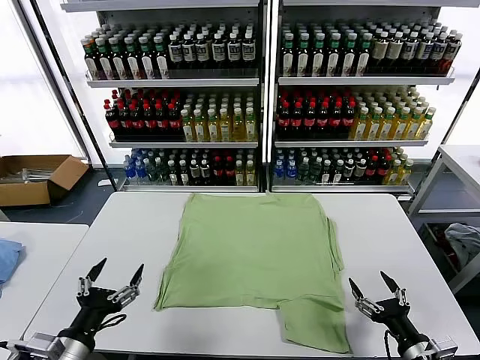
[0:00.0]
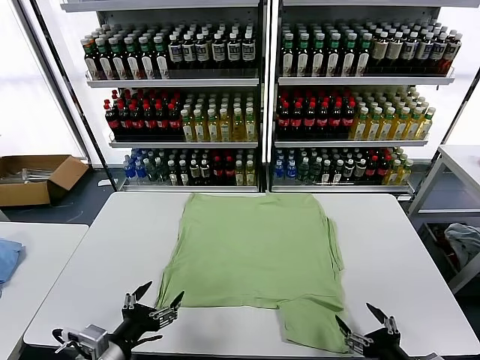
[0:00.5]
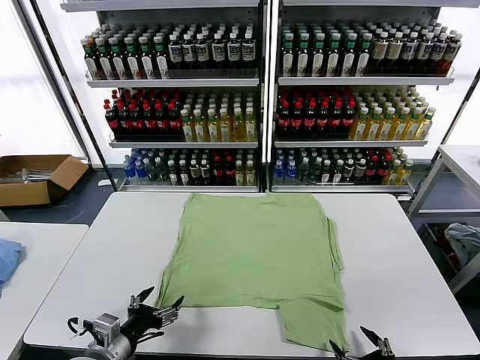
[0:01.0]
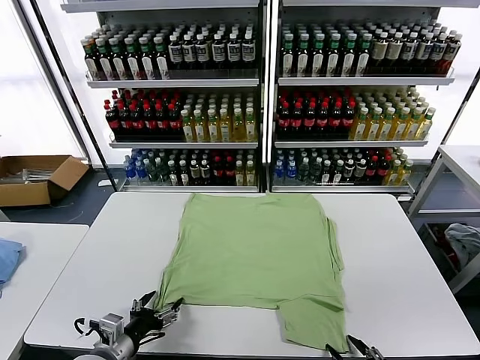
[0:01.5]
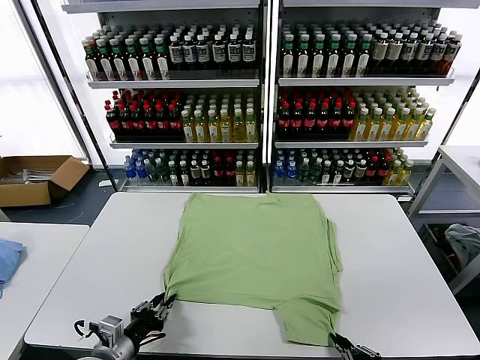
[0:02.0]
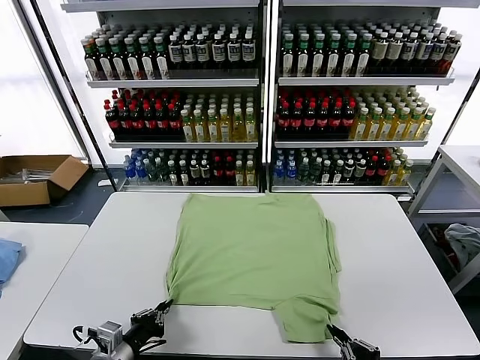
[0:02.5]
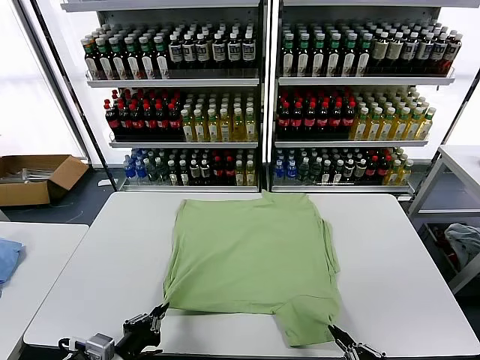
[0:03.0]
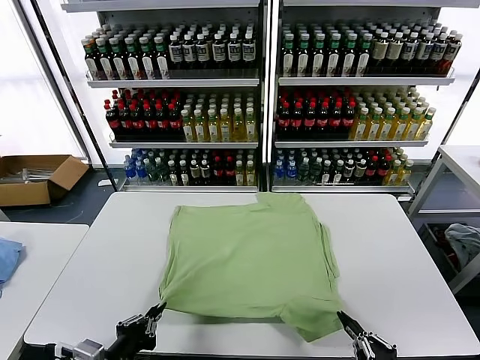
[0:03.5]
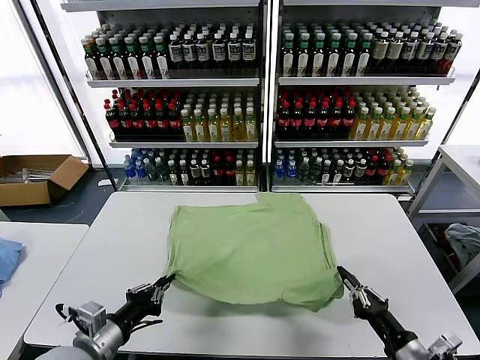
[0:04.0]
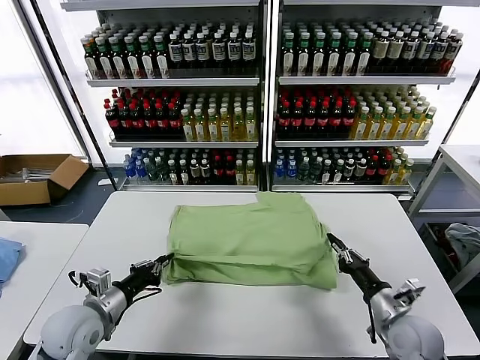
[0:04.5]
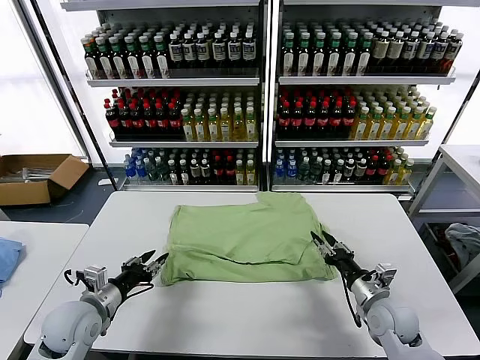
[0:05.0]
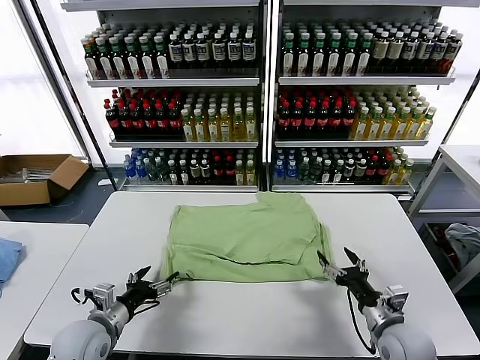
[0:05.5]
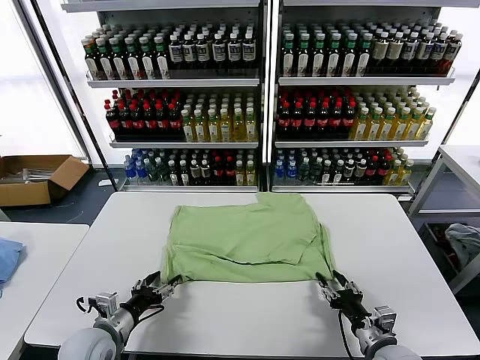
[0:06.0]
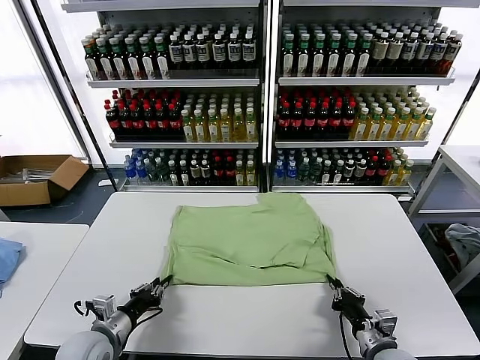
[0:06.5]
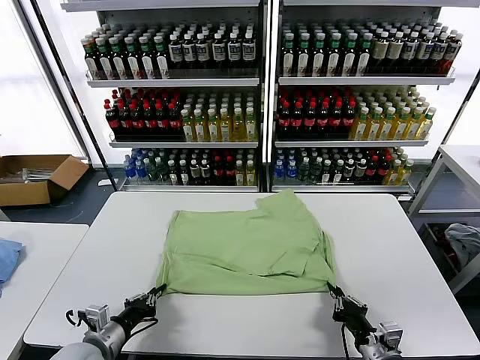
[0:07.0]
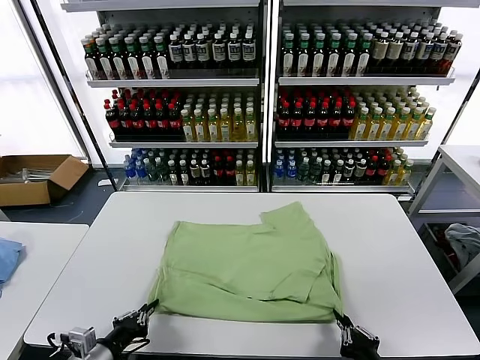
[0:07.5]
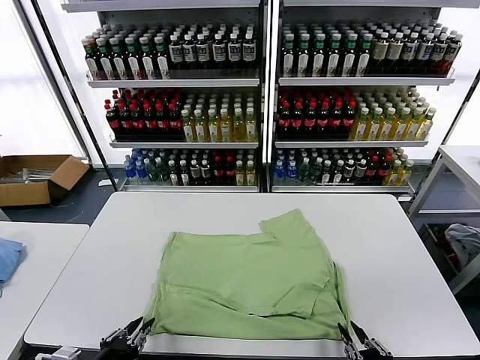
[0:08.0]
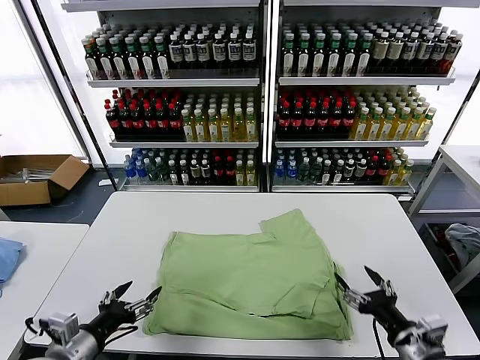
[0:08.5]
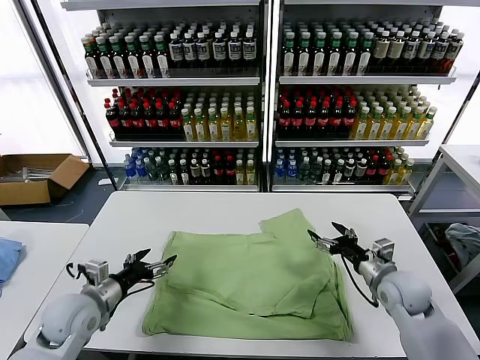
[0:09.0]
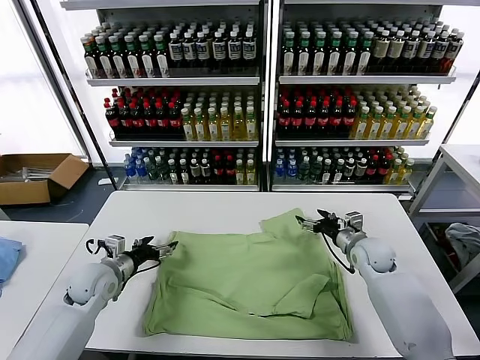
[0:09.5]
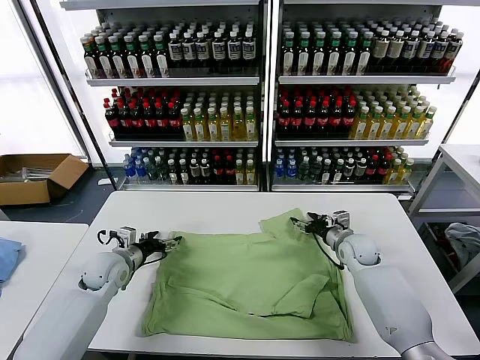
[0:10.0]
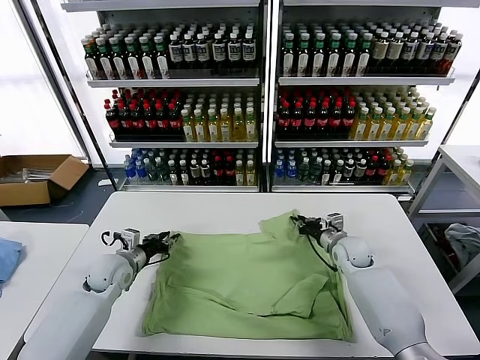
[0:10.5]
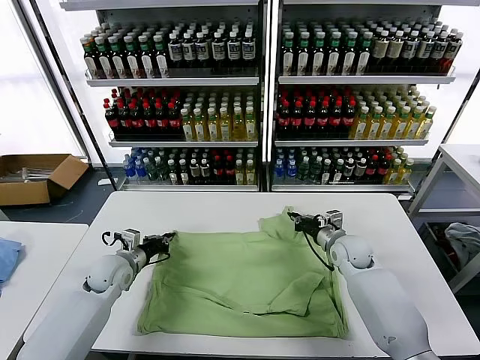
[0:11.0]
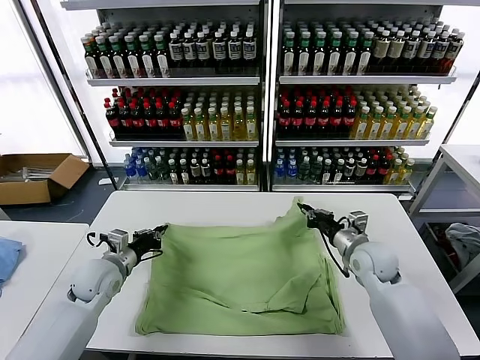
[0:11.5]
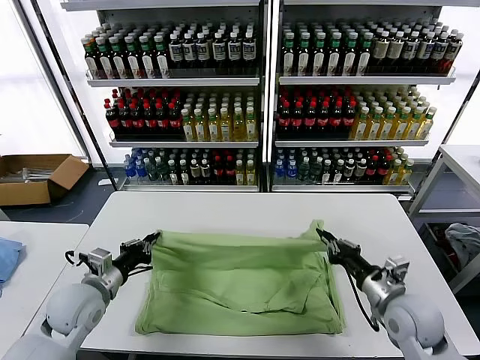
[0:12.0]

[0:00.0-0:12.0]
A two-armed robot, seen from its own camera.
Task of the whole recording: fold and organize the clothes.
Step, 0:00.0 to 0:02.0: use both grippers simultaneously to clamp the lower edge of the clothing fabric.
Step, 0:02.5 to 0:05.0: use both grippers to drag the lower edge of the fabric forward and fold it over the upper edge.
Step, 0:05.5 to 0:08.0: Drag the clothes downward with both gripper.
Step, 0:08.5 to 0:10.5: use both grippers simultaneously to clamp the upper edge of the clothing fabric.
0:02.0 to 0:04.0: The left gripper moves upward, about 10 cm. Meanwhile the right gripper moves forward, some 10 cm.
0:04.0 to 0:06.0: The right gripper is displaced downward by roughly 5 cm, and opens up, while the left gripper shifts roughly 10 cm downward and forward, and opens.
0:06.0 to 0:08.0: The two grippers go approximately 15 cm backward and upward. The left gripper closes and opens again. Meanwhile the right gripper closes and opens again.
0:08.0 to 0:10.0: The two grippers go roughly 35 cm forward. The left gripper opens.
0:10.0 to 0:12.0: The right gripper shifts some 20 cm backward, and closes, while the left gripper is displaced backward by roughly 10 cm, and closes its fingers.

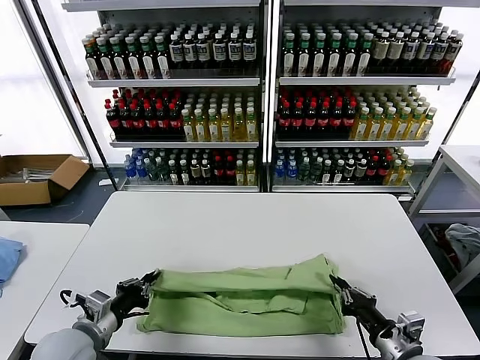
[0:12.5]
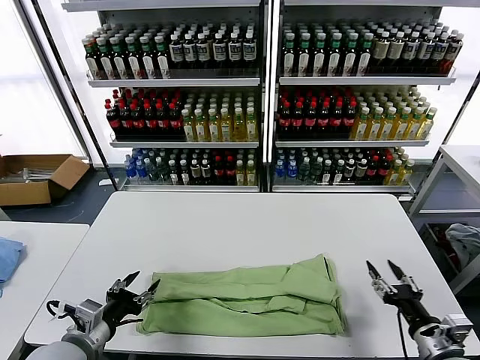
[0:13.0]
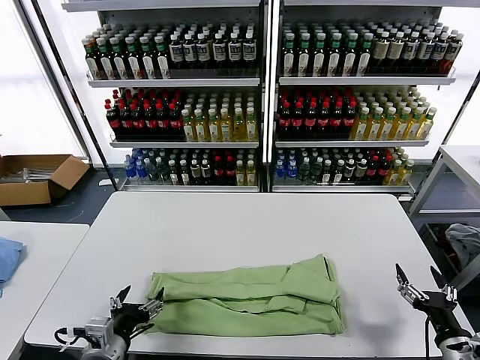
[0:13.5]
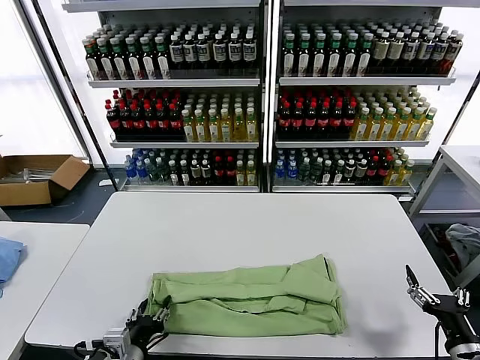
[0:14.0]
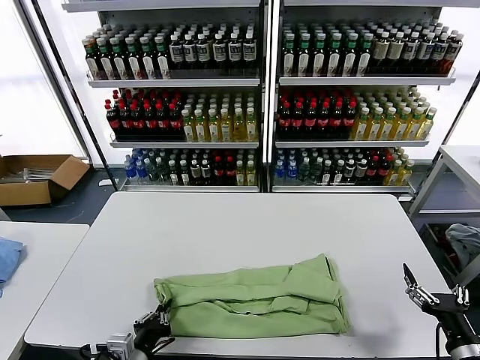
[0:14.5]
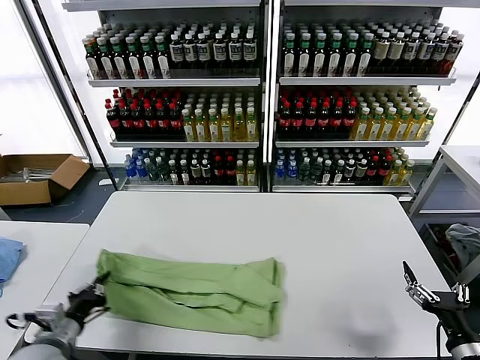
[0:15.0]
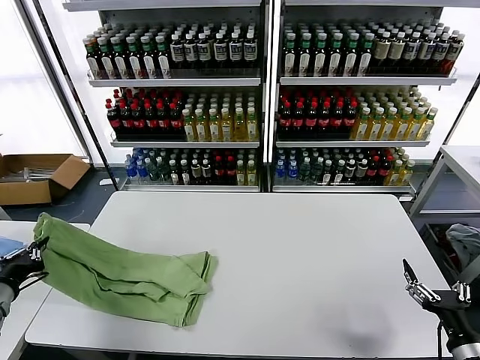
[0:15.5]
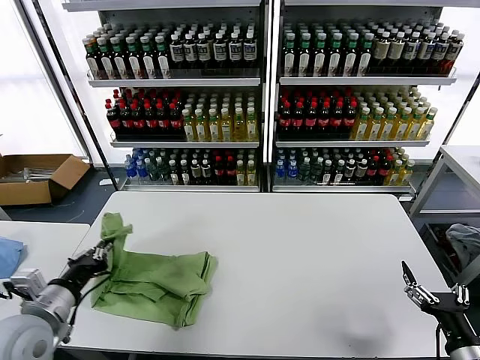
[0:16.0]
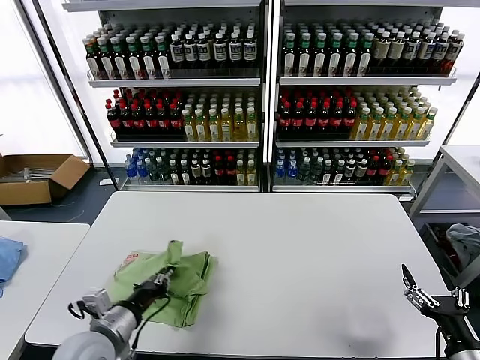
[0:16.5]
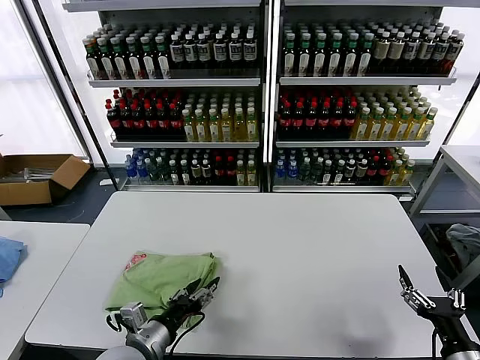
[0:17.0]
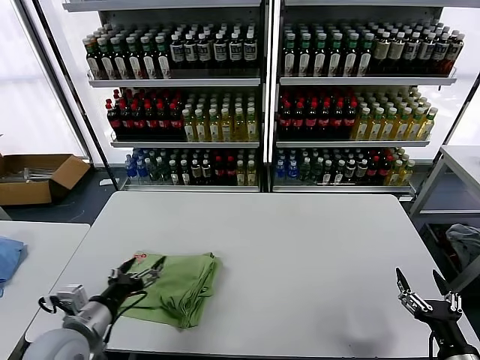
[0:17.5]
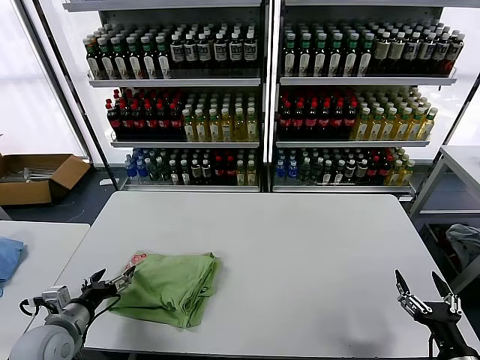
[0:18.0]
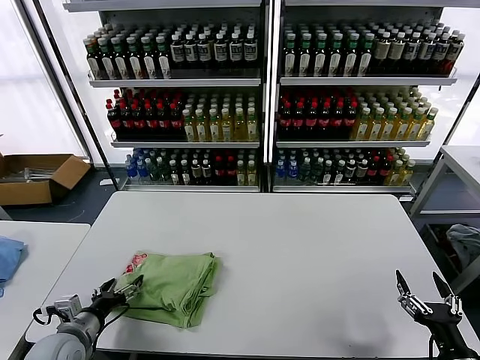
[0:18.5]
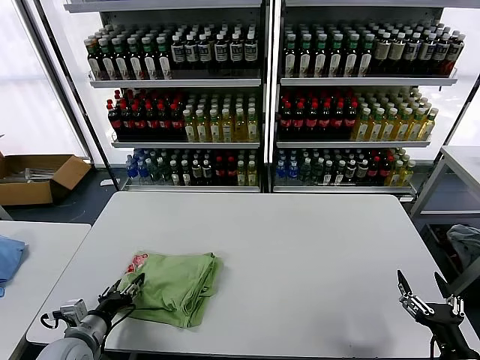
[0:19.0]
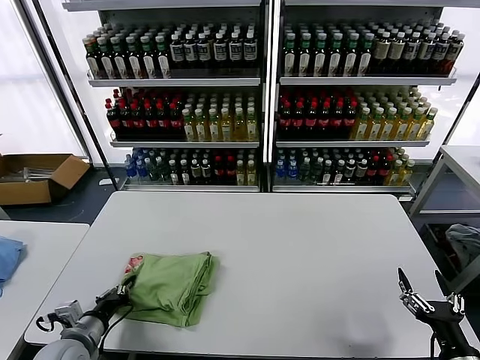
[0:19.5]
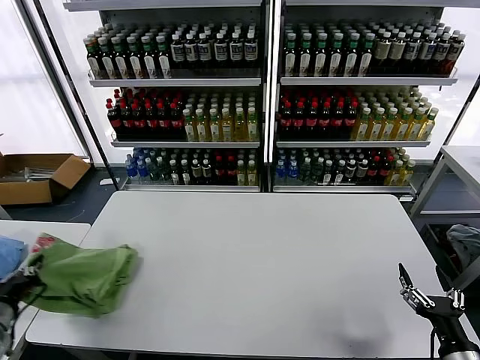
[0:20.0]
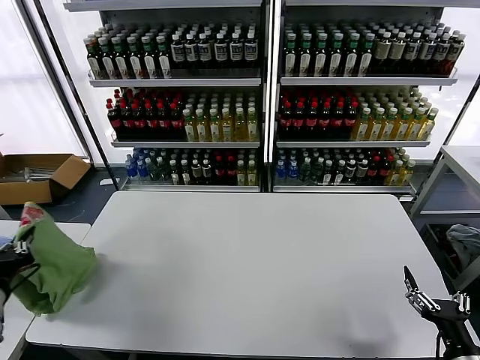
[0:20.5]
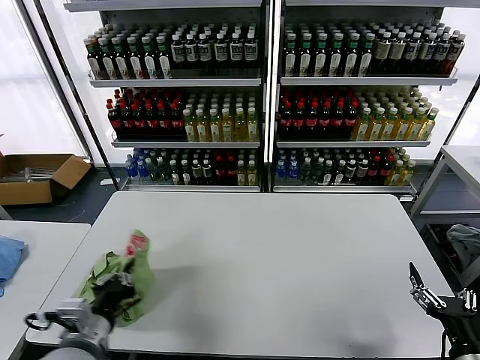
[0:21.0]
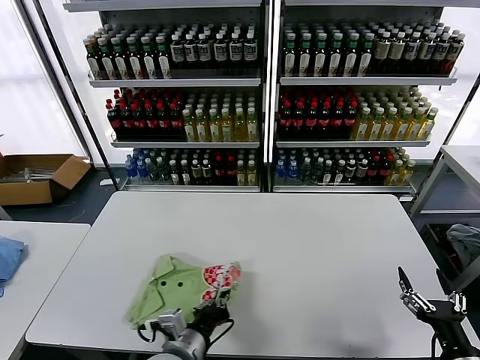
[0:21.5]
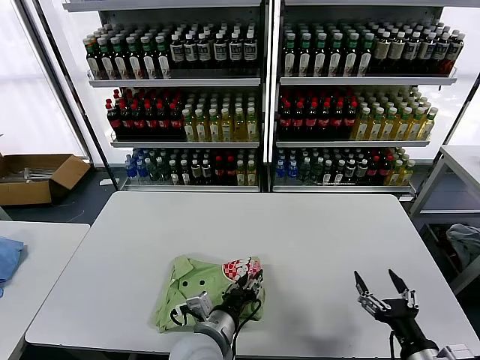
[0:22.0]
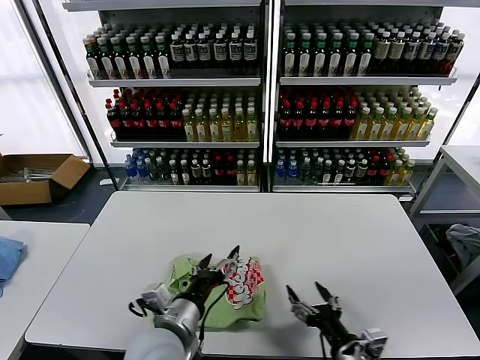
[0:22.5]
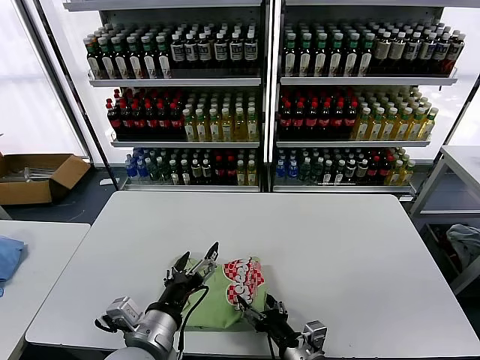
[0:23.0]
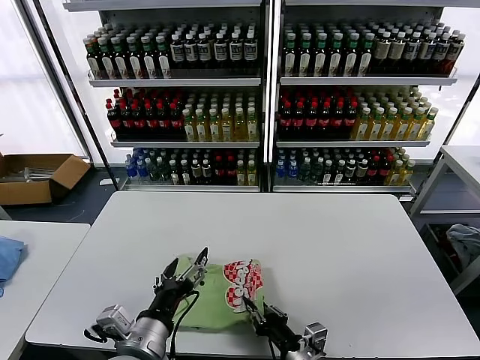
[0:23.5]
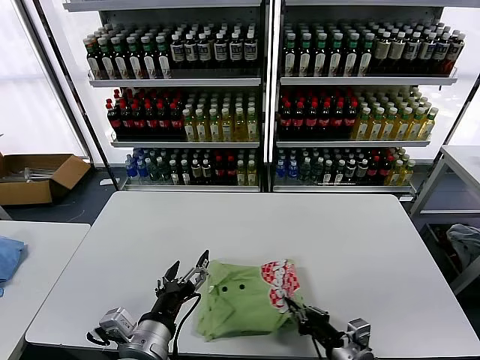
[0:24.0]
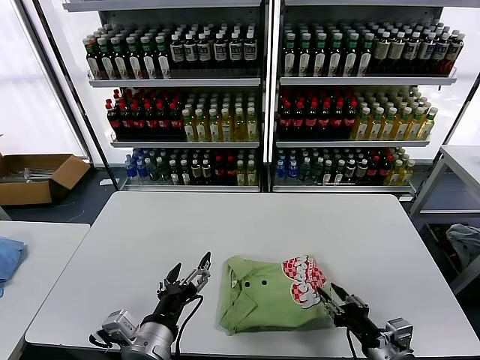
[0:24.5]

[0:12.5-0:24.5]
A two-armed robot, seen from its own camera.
Task of the whole recording: fold and organize the clothes.
Step, 0:13.0 to 0:14.5: use the left gripper to clamp the left edge of the fabric.
Step, 0:15.0 to 0:17.0: use the left gripper to drag the left edge of the fabric to the left and folds it over the right edge.
Step, 0:17.5 to 0:22.0: Flip the folded clothes over with left gripper.
0:12.5 to 0:14.5: The right gripper moves to the right, about 10 cm, and opens its fingers. The left gripper shifts about 10 cm to the right and backward, and opens and closes again.
0:14.5 to 0:16.5: The left gripper shifts approximately 10 cm upward and forward, and moves about 25 cm to the left and comes back.
0:16.5 to 0:18.5: The left gripper moves to the left and downward, roughly 10 cm, and opens up.
0:18.5 to 0:20.5: The left gripper heads upward and to the left, covering roughly 15 cm, and closes.
0:20.5 to 0:22.5: The left gripper shifts about 30 cm to the right, and opens its fingers, while the right gripper goes roughly 15 cm to the left.
0:22.5 to 0:24.5: The left gripper heads backward, covering approximately 5 cm. The right gripper shifts roughly 5 cm to the right, and closes.

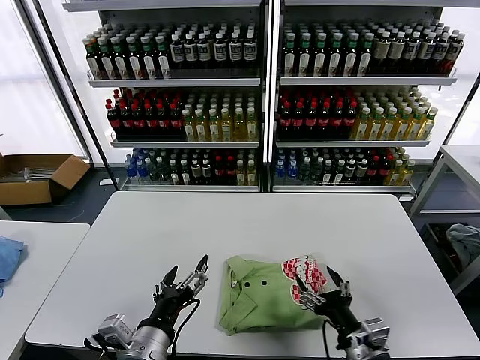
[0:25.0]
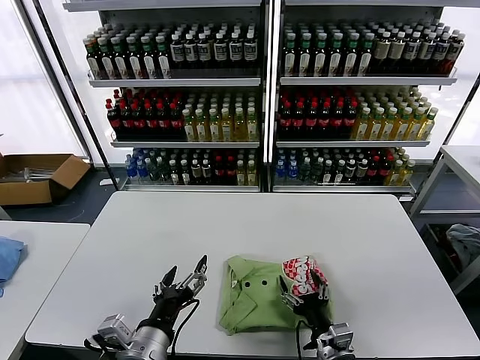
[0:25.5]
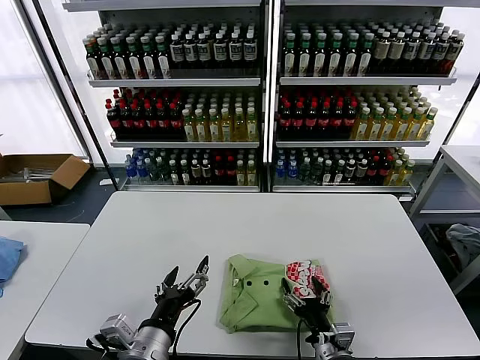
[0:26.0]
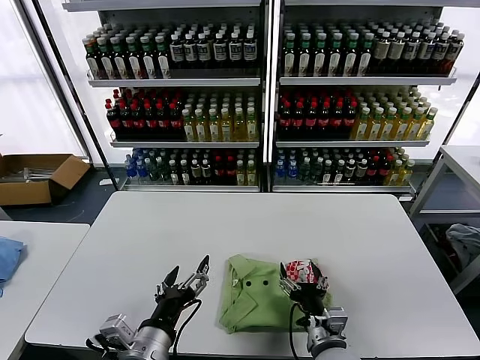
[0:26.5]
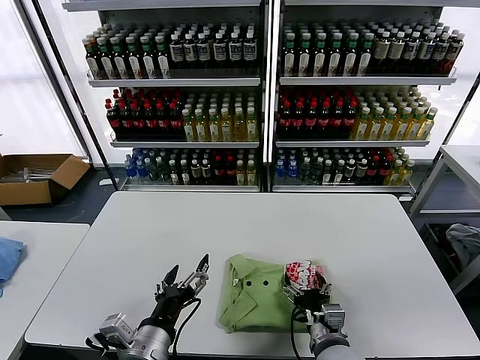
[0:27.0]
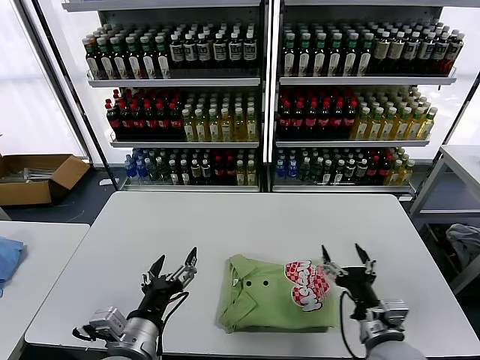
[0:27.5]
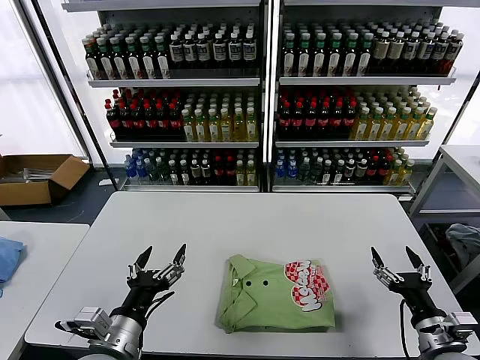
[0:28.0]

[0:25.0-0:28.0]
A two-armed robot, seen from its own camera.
Task of the whole recording: fold and organize the clothes.
Step, 0:25.0 to 0:27.0: Drag the clothes to the center of the table.
0:25.0 to 0:26.5: The right gripper travels to the left by approximately 10 cm.
0:26.5 to 0:28.0: The right gripper goes about 20 cm to the right. The left gripper is displaced to the left by approximately 5 cm.
